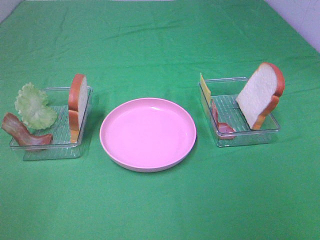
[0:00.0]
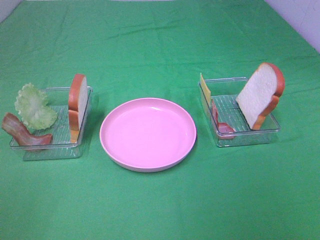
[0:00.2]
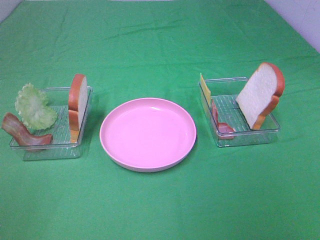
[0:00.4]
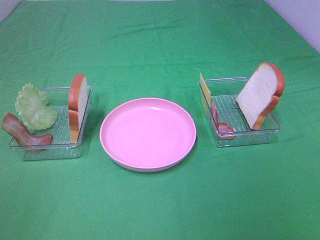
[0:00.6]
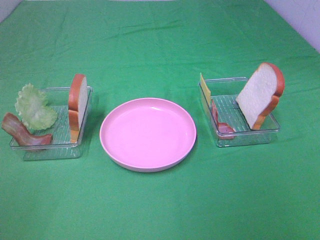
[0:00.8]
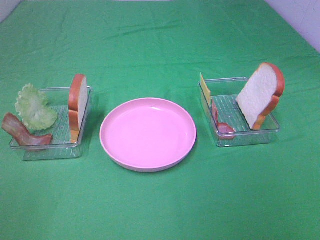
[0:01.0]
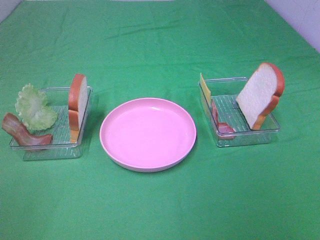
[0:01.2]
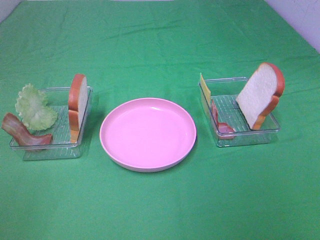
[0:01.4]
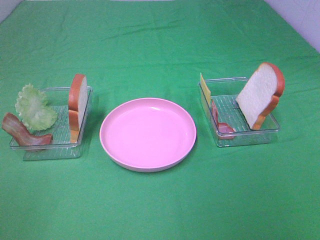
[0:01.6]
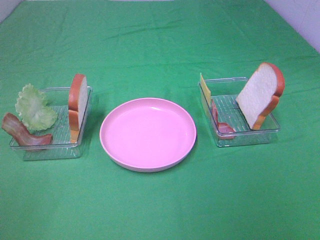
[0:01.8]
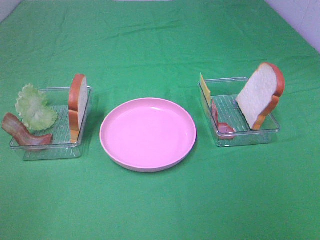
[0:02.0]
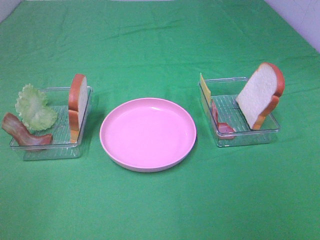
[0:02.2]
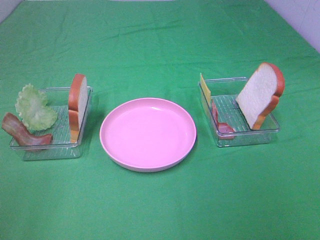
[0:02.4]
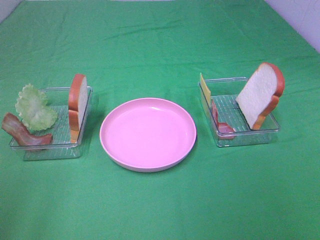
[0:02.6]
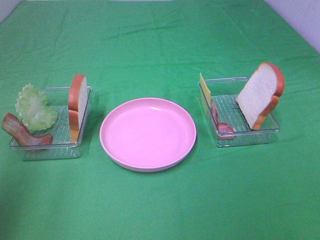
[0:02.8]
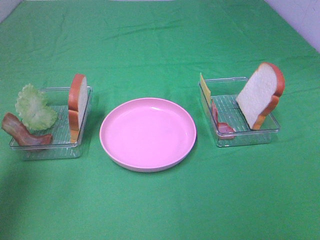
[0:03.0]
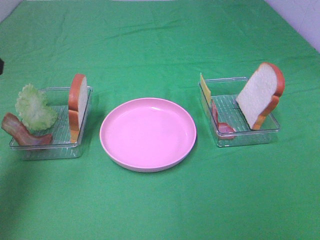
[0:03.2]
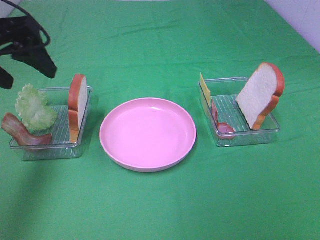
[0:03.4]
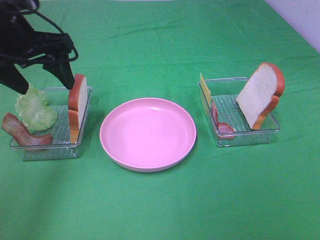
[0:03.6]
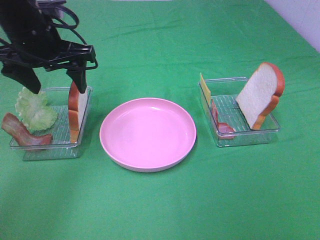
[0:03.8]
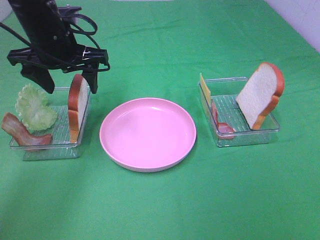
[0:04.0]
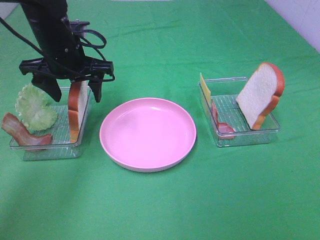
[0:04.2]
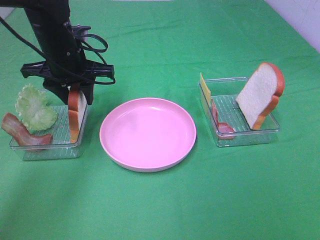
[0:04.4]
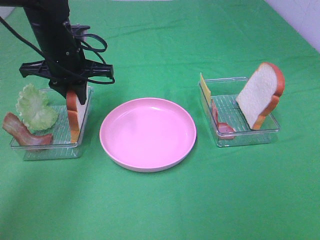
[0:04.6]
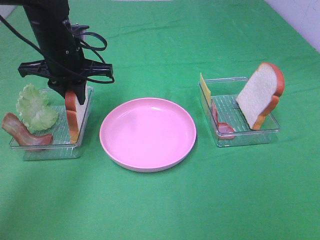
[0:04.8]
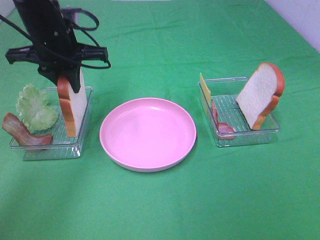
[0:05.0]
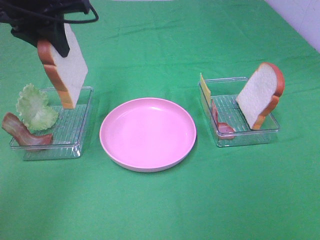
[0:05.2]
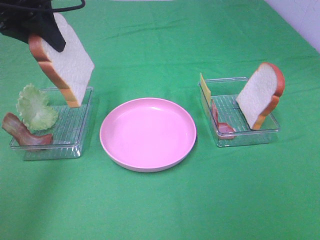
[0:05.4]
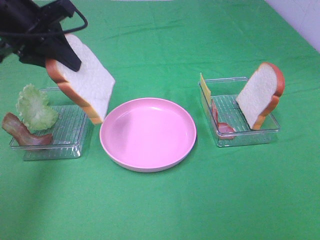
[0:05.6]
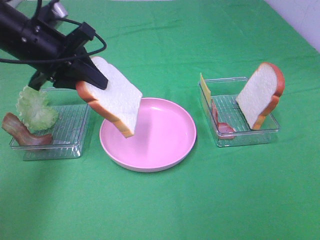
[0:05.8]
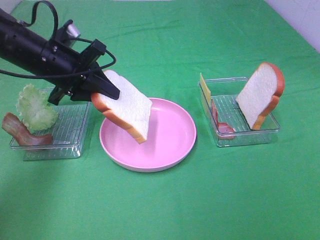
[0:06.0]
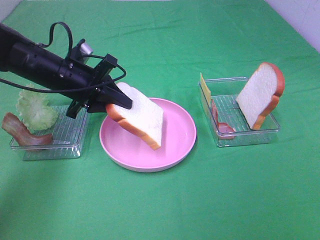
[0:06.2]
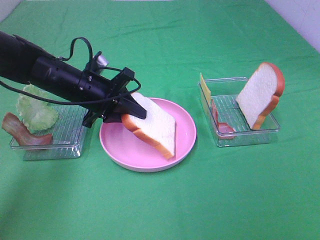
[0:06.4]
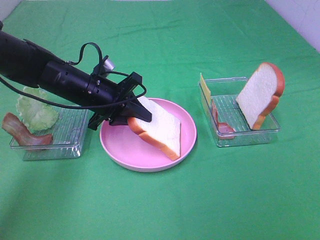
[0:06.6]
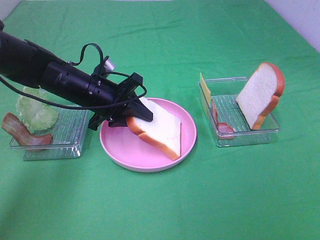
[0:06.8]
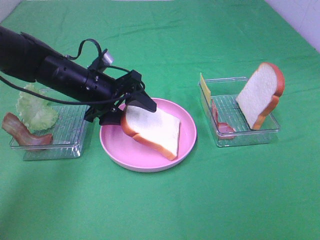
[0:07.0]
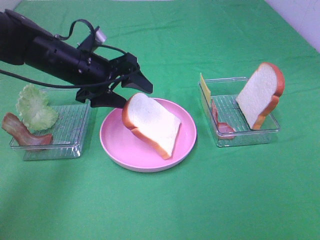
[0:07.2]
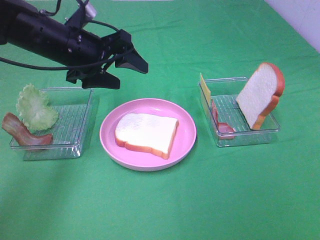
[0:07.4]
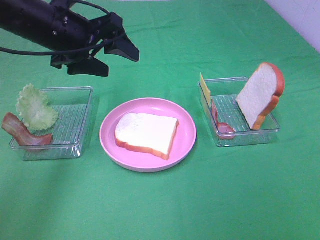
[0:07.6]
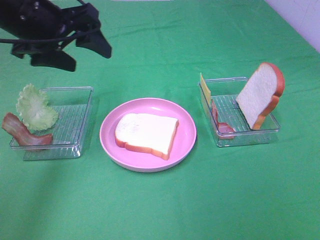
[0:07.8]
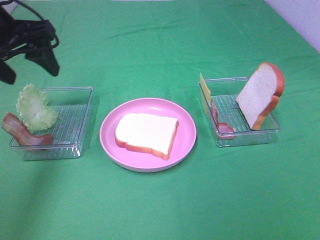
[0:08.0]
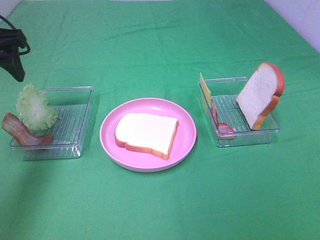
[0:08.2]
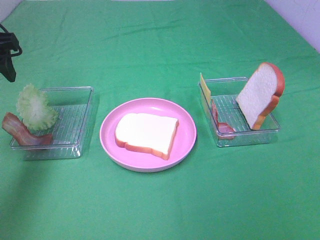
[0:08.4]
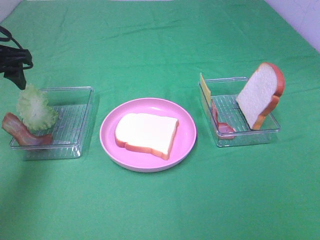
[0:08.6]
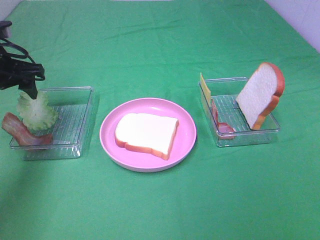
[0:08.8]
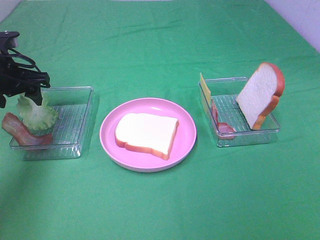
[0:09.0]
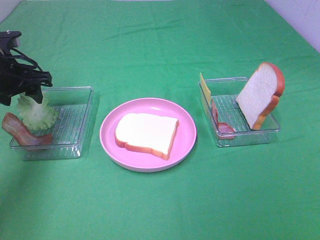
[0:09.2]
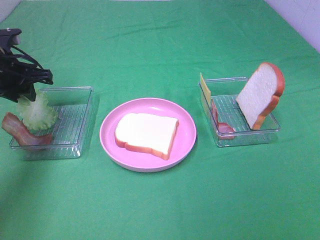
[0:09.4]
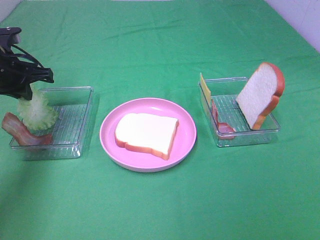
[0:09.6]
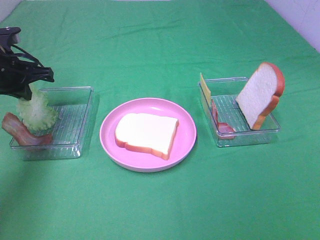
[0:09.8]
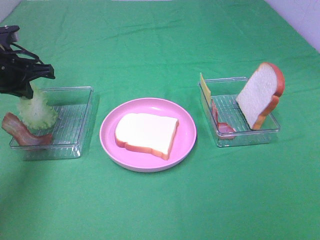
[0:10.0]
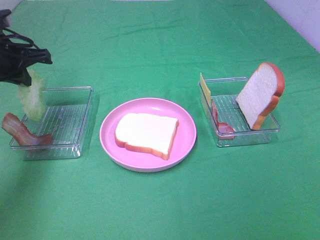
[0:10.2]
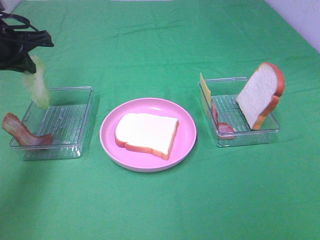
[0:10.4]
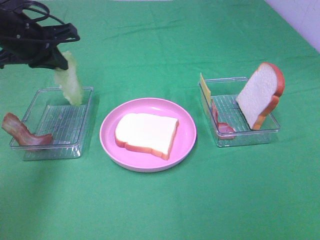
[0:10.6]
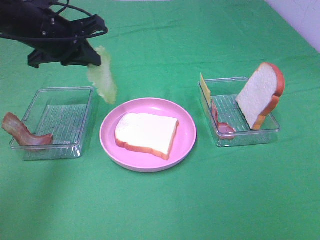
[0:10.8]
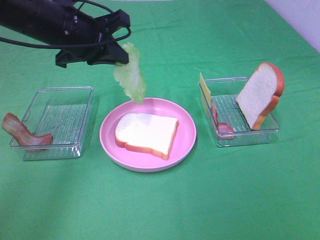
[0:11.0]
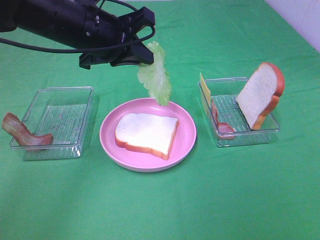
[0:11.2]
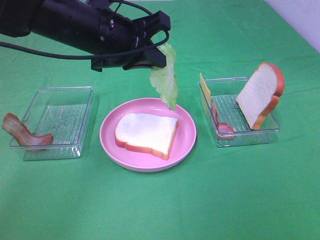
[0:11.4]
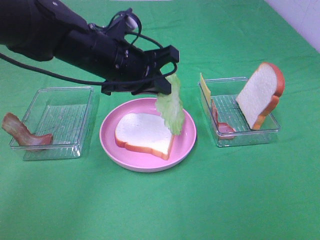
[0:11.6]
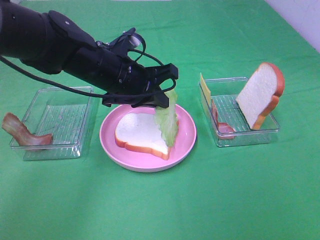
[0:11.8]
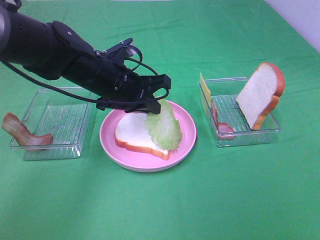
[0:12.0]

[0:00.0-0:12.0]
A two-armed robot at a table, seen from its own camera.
Task of the whole recording: Make sandwiches.
Step, 0:00.0 to 0:04.6: Left hand:grab the bread slice.
Step, 0:04.8 to 0:07.2: Left hand:place the bread slice on the plate.
Step, 0:07.4 to 0:10.0: Left hand:grab the lettuce slice.
0:00.0 to 0:01.6: The two grippers keep their place.
0:01.6 to 0:03.0: The left gripper goes about 20 cm forward.
0:03.0 to 0:04.4: The left gripper travels forward, to the right and downward by approximately 30 cm, and closes.
0:04.4 to 0:06.0: The left gripper reaches about 15 cm upward, then returns.
0:06.0 to 0:07.6: The left gripper goes roughly 5 cm upward, and opens up.
0:07.6 to 0:09.0: The left gripper shifts roughly 15 cm to the left and downward.
0:09.0 to 0:10.4: The left gripper moves upward, some 5 cm, and closes.
0:10.4 to 0:12.0: The left gripper goes roughly 20 cm to the right.

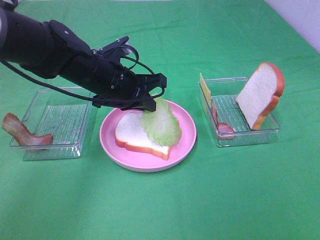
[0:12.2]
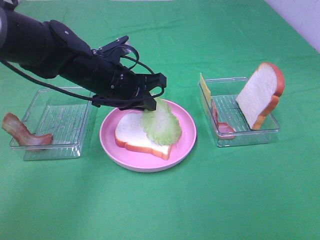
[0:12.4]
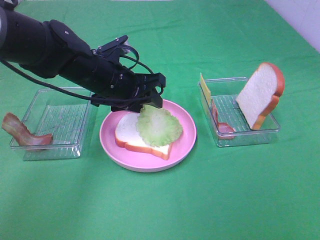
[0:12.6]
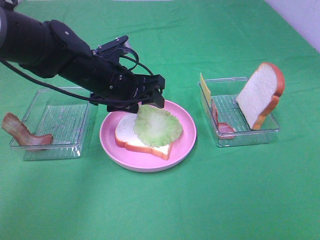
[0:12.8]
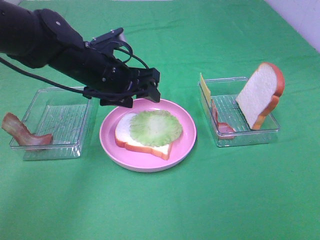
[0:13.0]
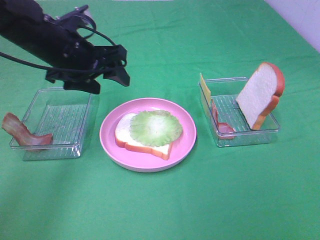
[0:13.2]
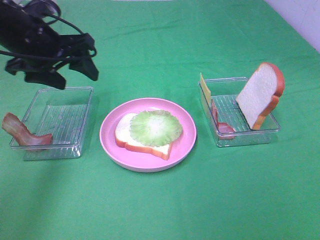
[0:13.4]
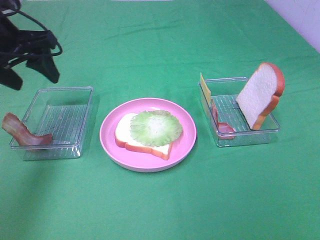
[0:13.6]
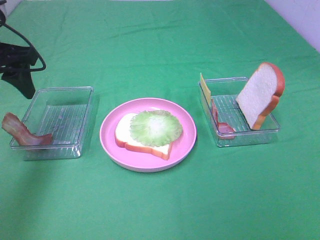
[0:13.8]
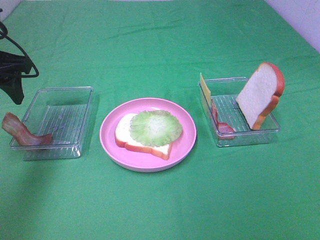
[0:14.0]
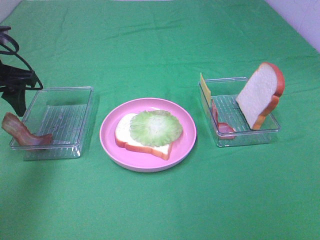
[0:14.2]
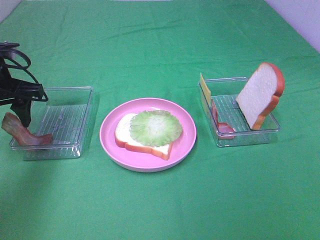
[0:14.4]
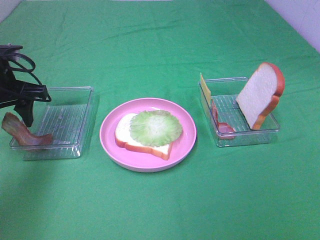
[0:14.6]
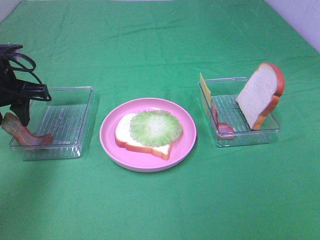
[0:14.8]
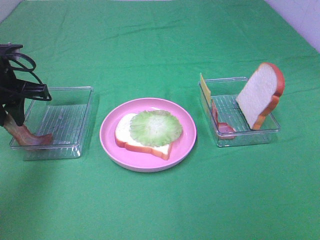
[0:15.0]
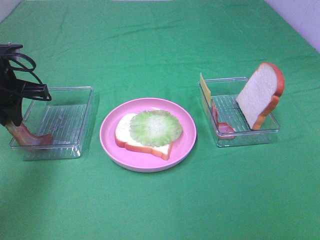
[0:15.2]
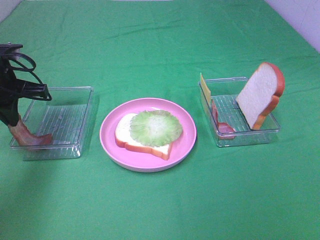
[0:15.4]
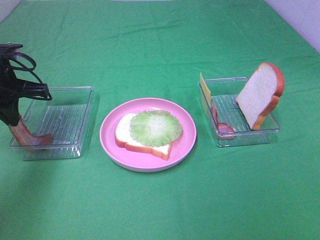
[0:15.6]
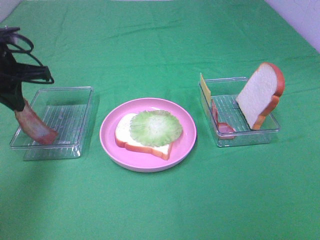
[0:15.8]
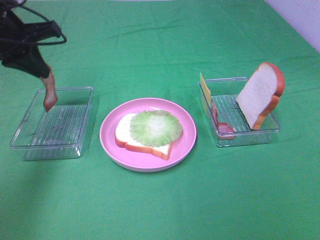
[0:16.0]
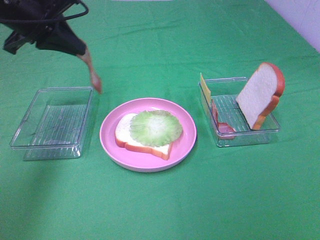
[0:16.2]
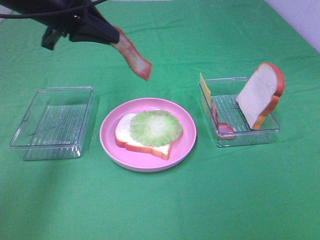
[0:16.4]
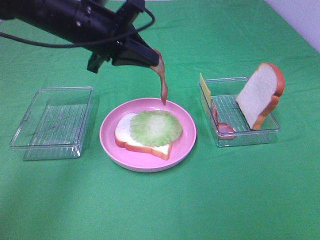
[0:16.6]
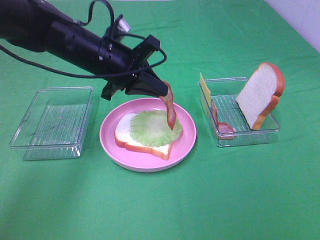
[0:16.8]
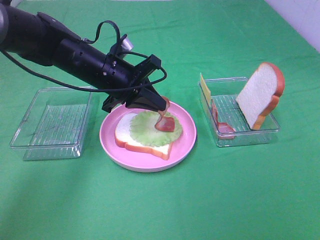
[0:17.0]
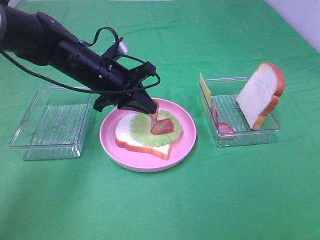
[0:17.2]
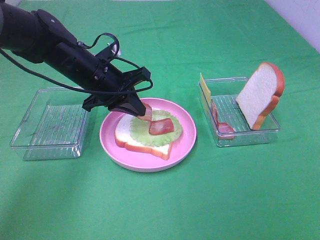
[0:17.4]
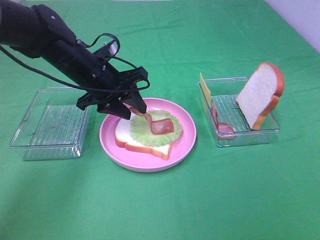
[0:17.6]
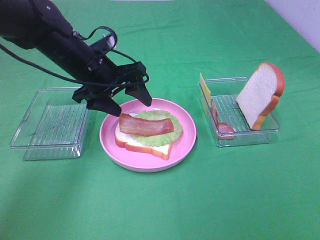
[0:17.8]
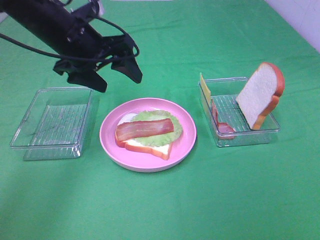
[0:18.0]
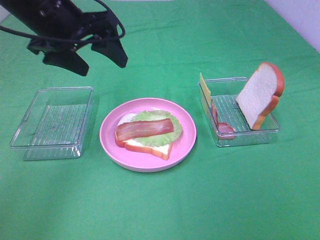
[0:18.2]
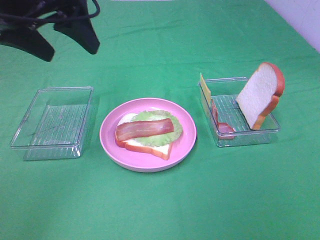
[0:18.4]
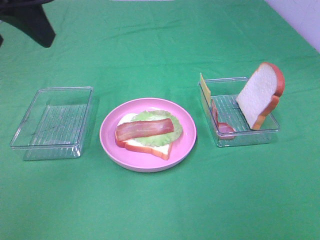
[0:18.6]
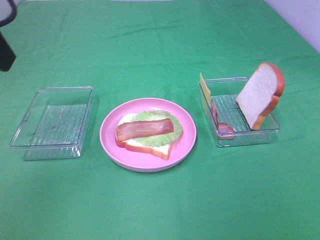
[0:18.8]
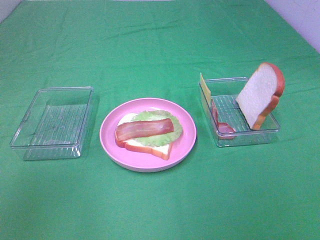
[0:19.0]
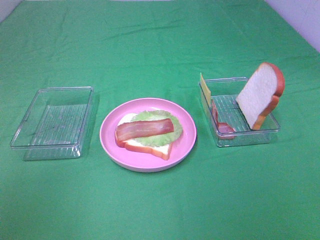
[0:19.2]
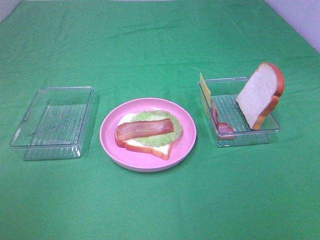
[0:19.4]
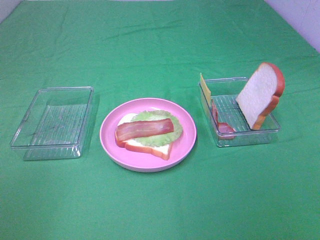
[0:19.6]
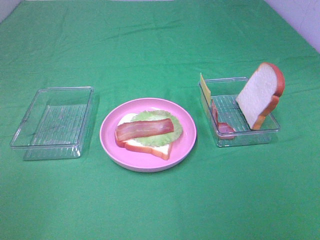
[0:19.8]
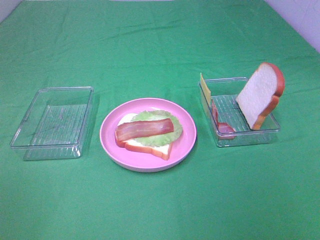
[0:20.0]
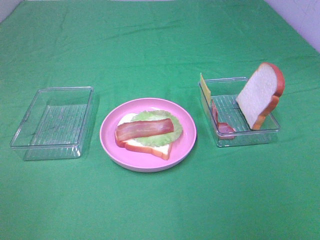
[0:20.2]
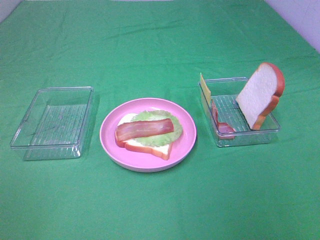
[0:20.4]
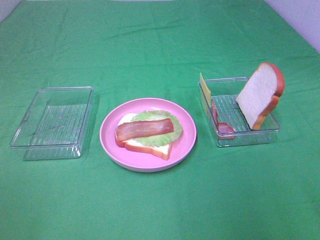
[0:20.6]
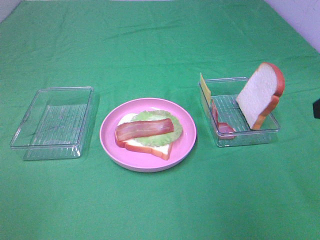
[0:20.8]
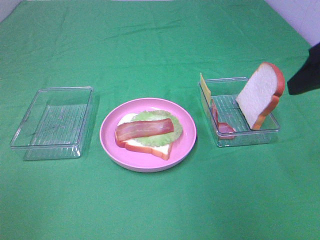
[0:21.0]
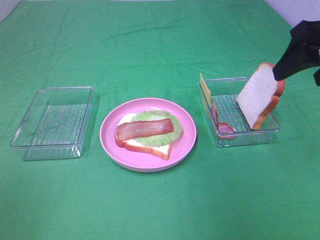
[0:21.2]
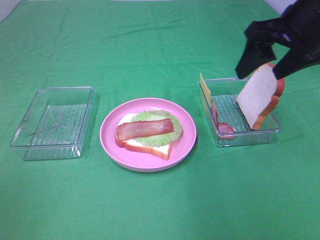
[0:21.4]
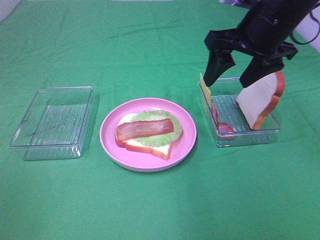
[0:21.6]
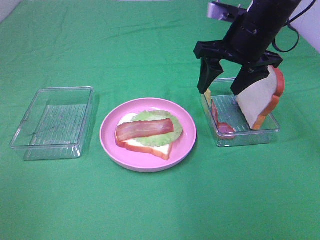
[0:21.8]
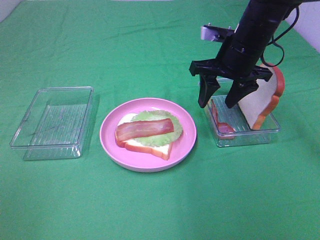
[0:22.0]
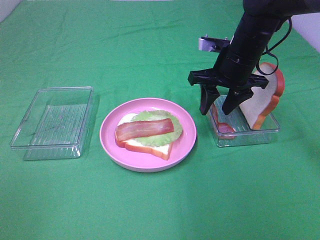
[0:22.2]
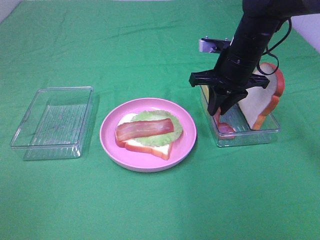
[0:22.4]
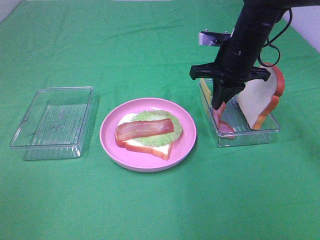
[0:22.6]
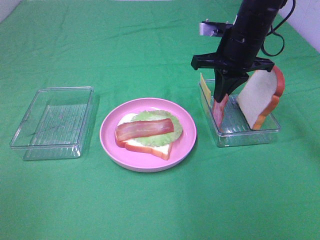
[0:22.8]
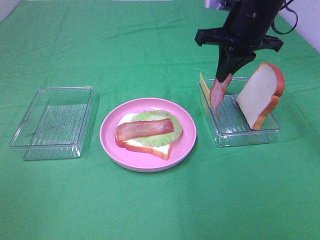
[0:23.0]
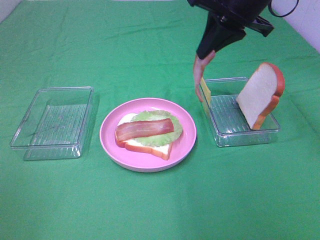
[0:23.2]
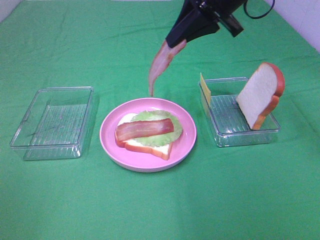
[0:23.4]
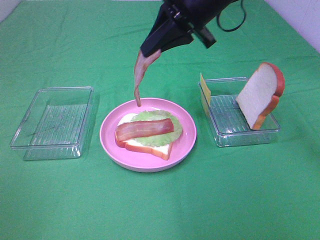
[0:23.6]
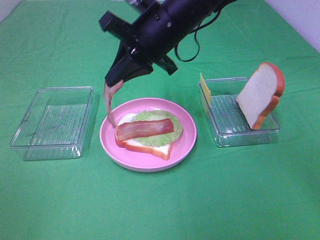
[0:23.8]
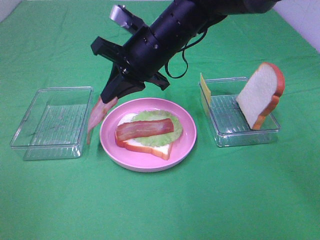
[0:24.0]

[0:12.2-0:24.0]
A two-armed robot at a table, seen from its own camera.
Task of the whole recording: Make sandwiches.
Step, 0:13.2 to 0:15.4: Left hand:grab the bacon.
Step, 0:15.6 to 0:17.8: Left hand:place bacon on lettuce slice.
Step, 0:18.0 to 0:22.4: Right hand:grab the bacon.
0:12.2 to 0:13.6: The left gripper goes some 20 cm to the left and upward, and opens.
0:13.6 to 0:15.2: The left gripper travels downward by approximately 10 cm, and closes up.
0:15.2 to 0:16.6: The left gripper goes approximately 15 cm to the right.
0:16.6 to 0:18.2: The left gripper moves upward, some 5 cm, and opens up.
0:18.2 to 0:19.6: The left gripper heads backward and to the left, covering roughly 30 cm.
0:19.6 to 0:21.0: The right gripper shifts roughly 25 cm forward.
0:21.0 to 0:22.6: The right gripper is displaced forward, downward and to the left by approximately 25 cm, and closes up.
0:22.6 to 0:24.0: The right gripper travels to the left by approximately 15 cm.
